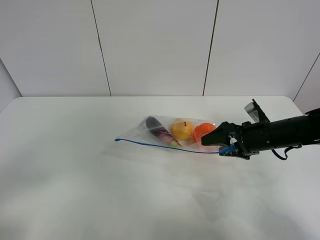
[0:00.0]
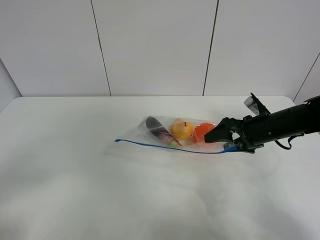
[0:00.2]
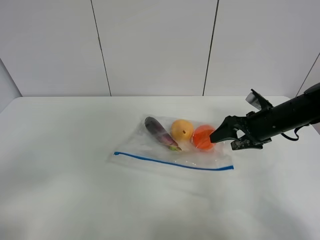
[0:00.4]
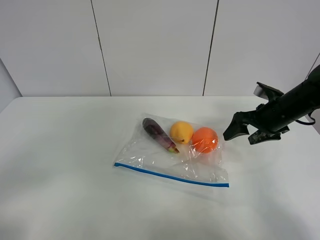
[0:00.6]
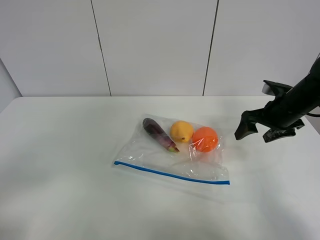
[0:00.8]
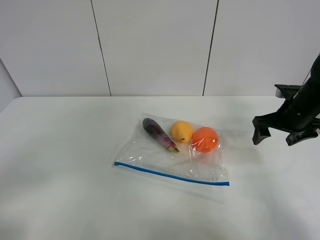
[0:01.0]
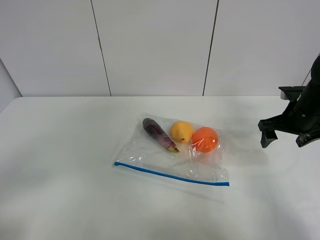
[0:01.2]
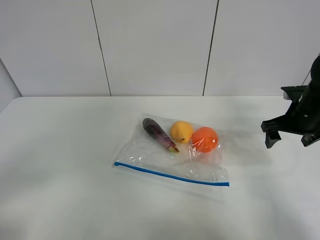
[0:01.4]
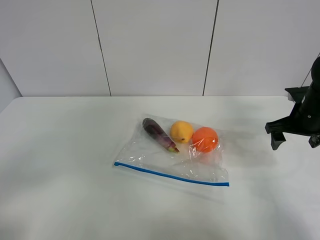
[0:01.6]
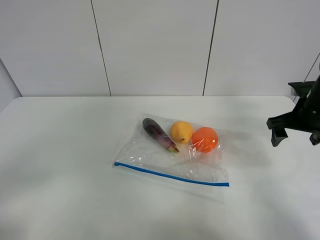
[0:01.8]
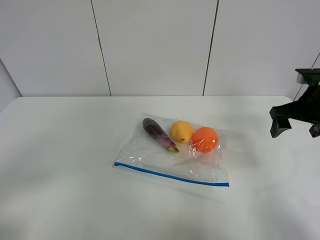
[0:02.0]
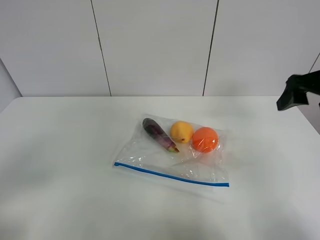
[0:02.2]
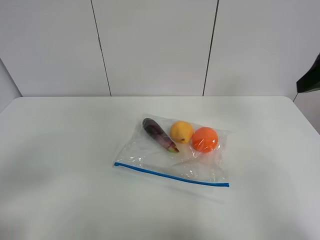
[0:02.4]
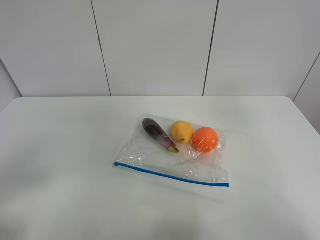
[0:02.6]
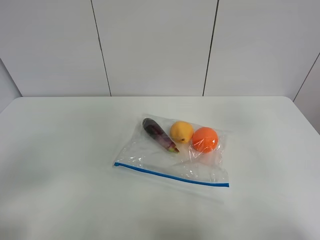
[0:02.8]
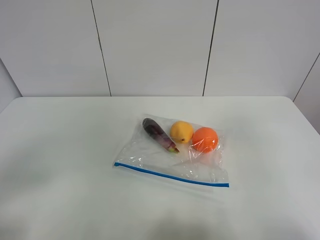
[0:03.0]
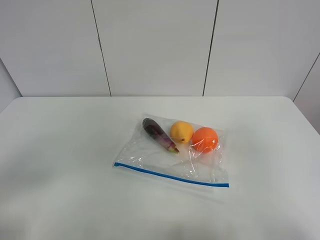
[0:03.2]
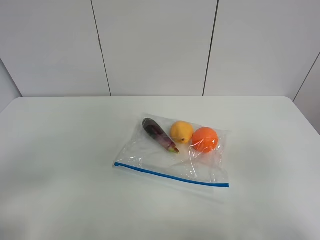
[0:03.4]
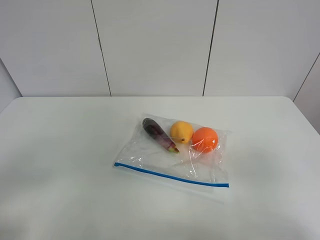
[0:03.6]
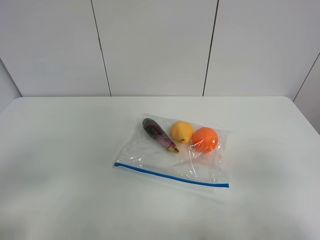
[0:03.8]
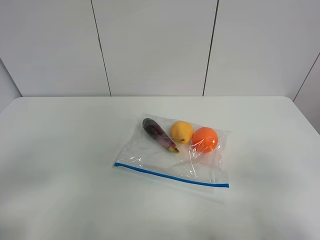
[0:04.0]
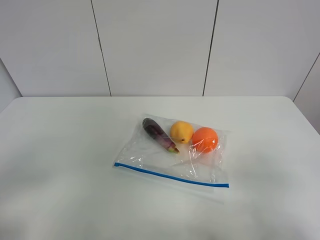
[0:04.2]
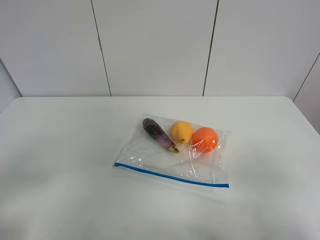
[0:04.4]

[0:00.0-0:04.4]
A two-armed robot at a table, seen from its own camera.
0:00.0 to 0:01.4: The right gripper moves to the right and upward, roughly 10 cm.
0:01.4 to 0:03.0: The right gripper is displaced backward and upward by approximately 35 cm.
0:03.0 to 0:04.4: The right gripper goes some 10 cm downward.

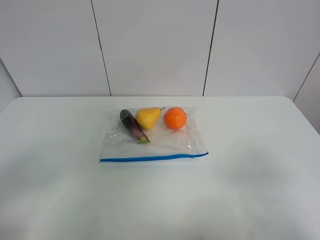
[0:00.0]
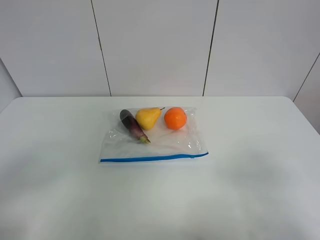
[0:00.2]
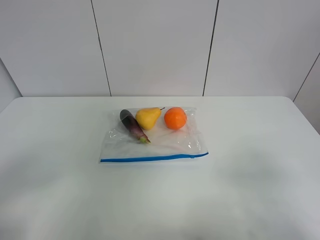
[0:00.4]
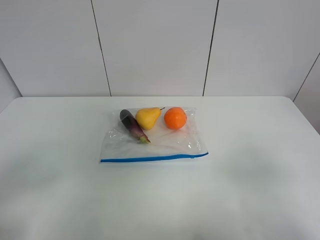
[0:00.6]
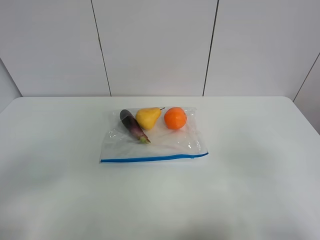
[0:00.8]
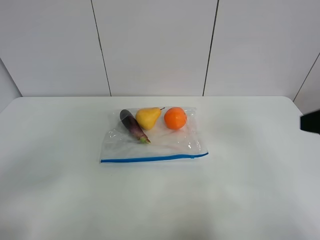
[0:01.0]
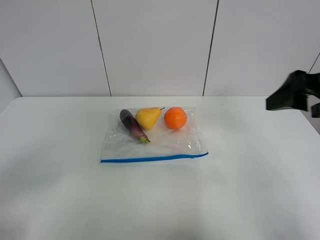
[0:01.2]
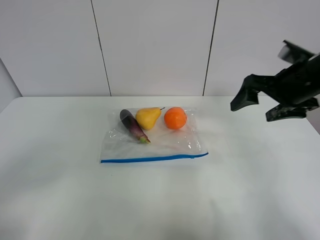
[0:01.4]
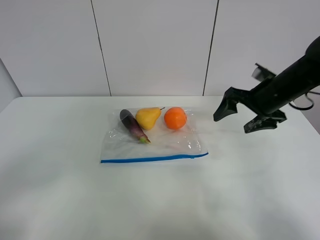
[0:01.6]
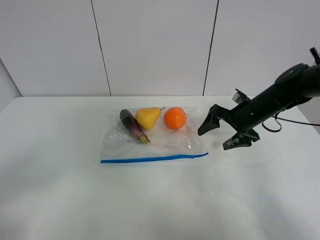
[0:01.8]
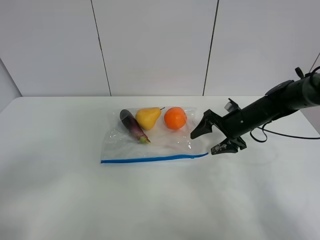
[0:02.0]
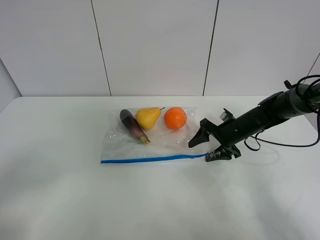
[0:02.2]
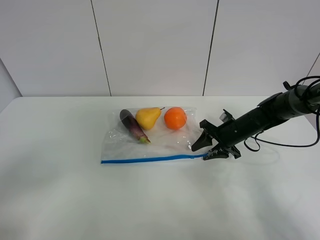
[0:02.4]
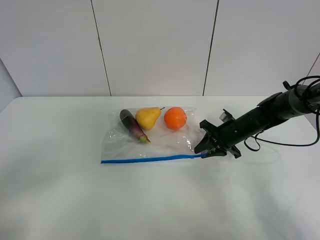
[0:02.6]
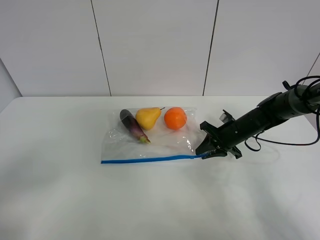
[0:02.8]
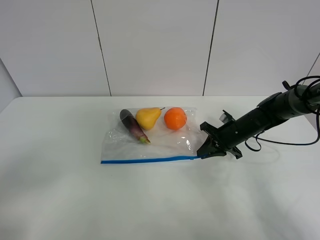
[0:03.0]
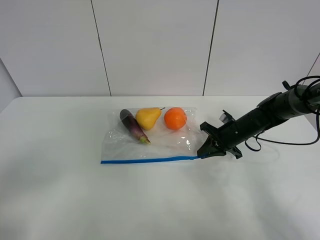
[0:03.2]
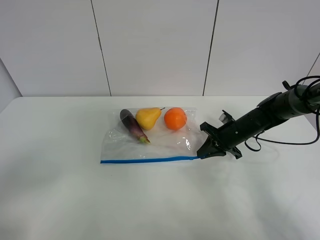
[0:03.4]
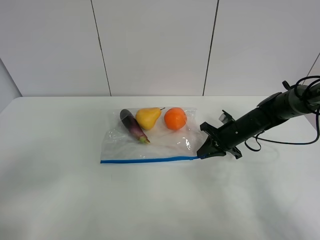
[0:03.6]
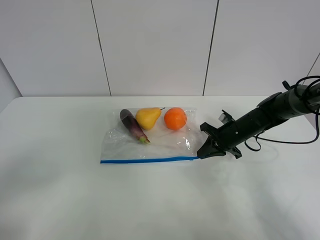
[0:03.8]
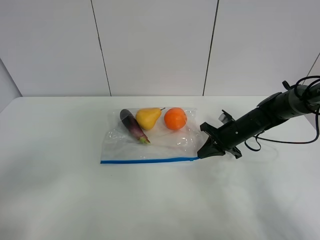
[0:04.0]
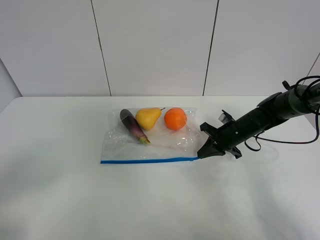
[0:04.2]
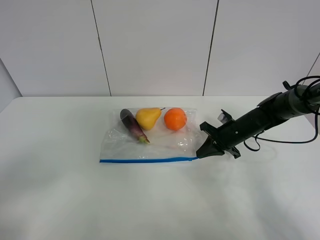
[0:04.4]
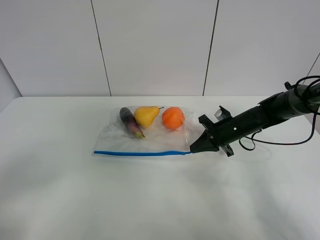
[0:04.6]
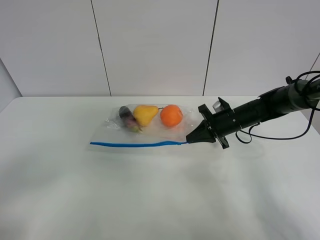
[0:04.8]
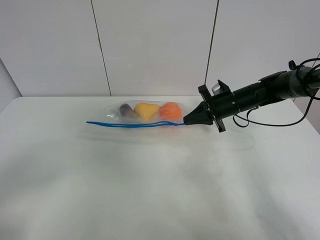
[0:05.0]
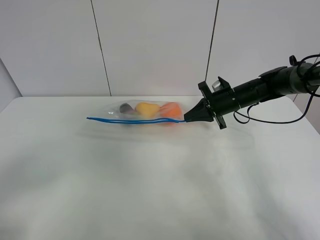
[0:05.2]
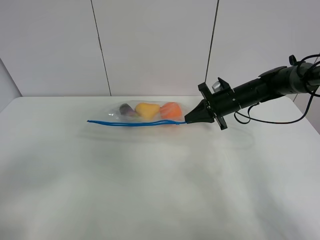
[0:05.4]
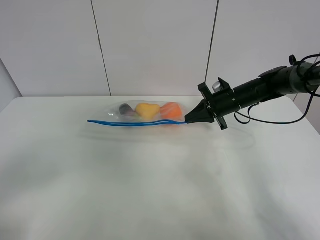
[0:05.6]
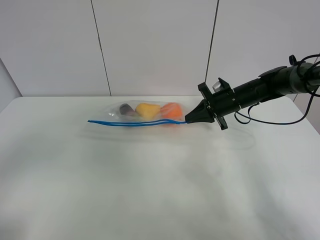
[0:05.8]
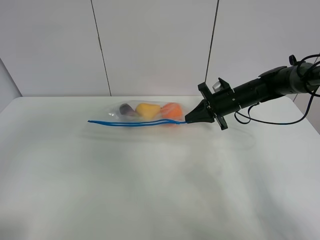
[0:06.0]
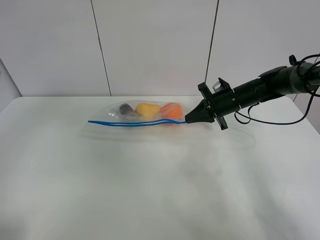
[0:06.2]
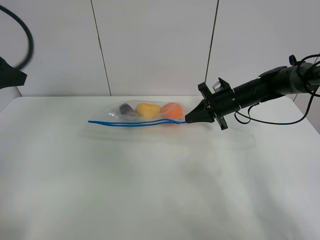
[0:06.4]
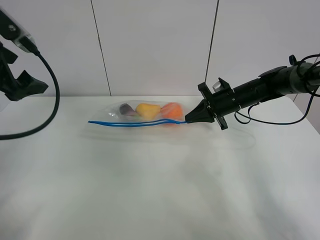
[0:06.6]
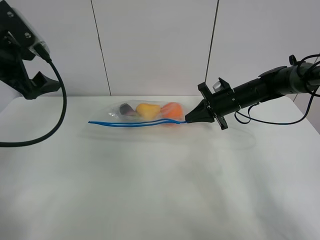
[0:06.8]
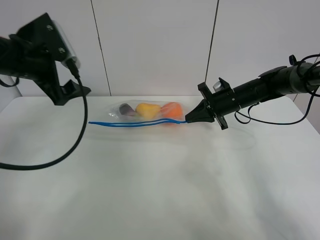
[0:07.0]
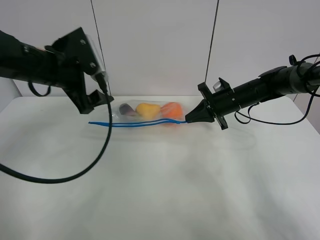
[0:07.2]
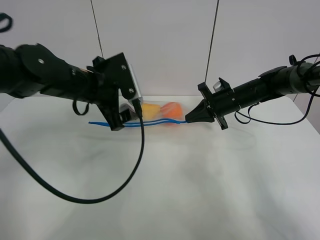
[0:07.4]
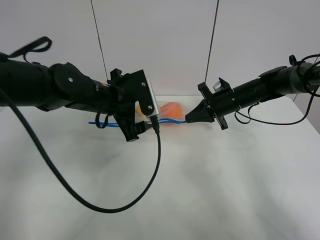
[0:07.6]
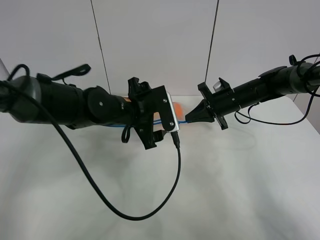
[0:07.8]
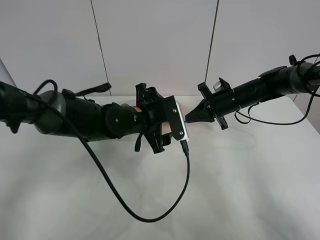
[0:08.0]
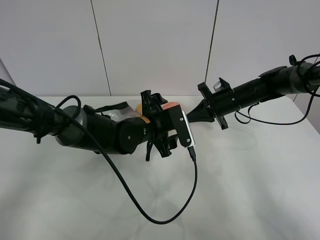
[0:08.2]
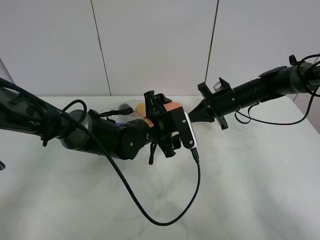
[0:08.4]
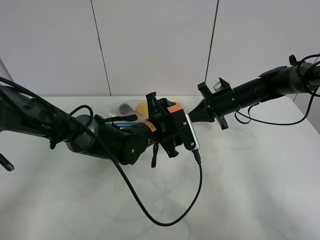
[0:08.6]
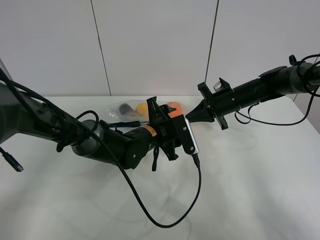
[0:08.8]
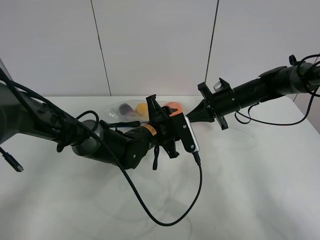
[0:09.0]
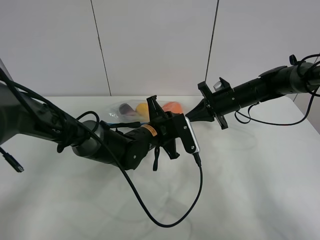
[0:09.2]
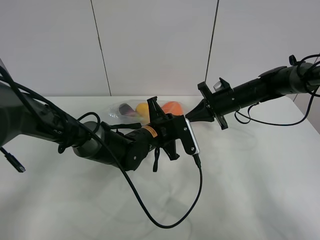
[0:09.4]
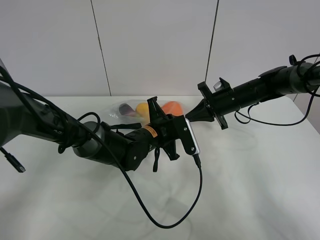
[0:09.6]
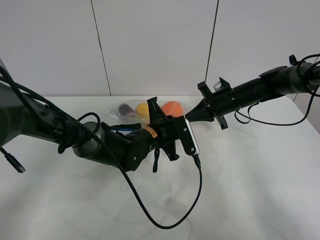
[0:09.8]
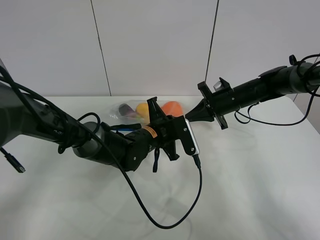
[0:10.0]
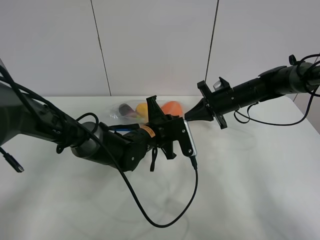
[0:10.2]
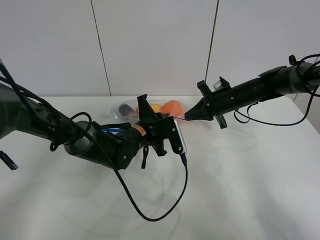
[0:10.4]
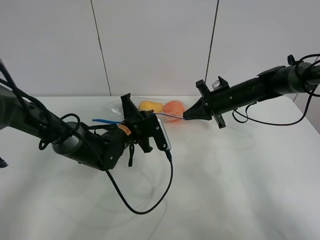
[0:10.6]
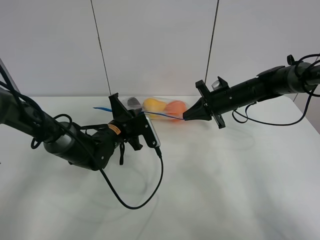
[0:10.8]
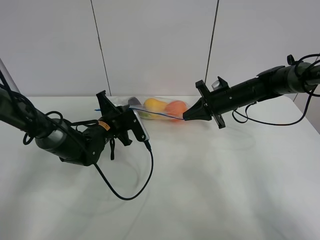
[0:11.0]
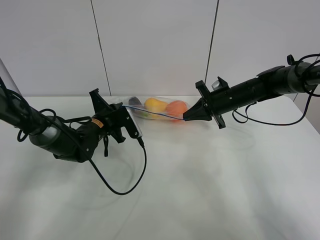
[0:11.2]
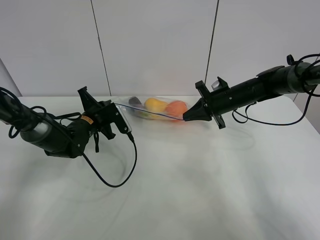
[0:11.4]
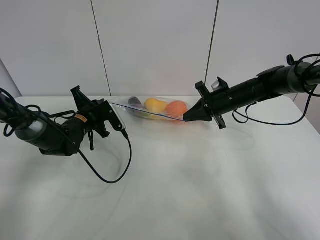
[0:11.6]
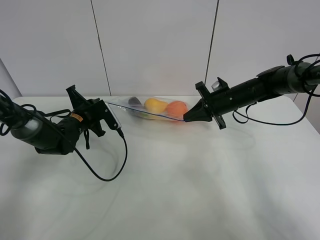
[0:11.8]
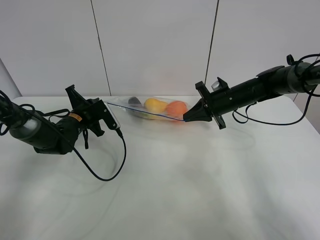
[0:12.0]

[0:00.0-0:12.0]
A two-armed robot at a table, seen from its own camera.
Step, 0:00.0 to 0:03.8: Grasp the fruit bag with right gripper.
Step, 0:04.0 to 0:05.4: Lift the fruit bag with your right gripper.
0:00.0 to 0:01.6: The right gripper moves forward, roughly 35 cm.
0:01.6 to 0:03.0: The right gripper moves downward, about 15 cm, and closes up.
0:03.0 to 0:04.4: The two grippers keep their place.
0:04.4 to 0:06.0: The right gripper moves upward, some 5 cm. Meanwhile the left gripper goes approximately 15 cm upward and forward.
0:06.0 to 0:07.6: The left gripper is displaced forward, to the right and downward by roughly 35 cm.
0:07.6 to 0:09.0: The left gripper shifts about 10 cm downward and to the right, and closes.
0:09.0 to 0:10.4: The left gripper closes its fingers.
0:10.4 to 0:12.0: The left gripper goes approximately 20 cm to the left.

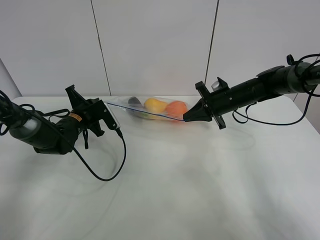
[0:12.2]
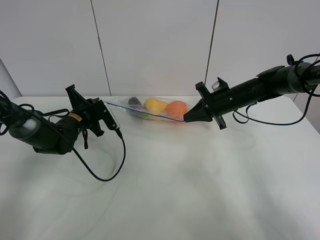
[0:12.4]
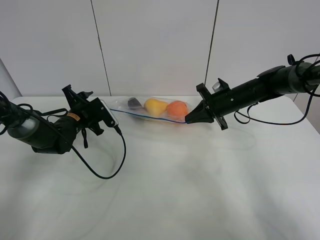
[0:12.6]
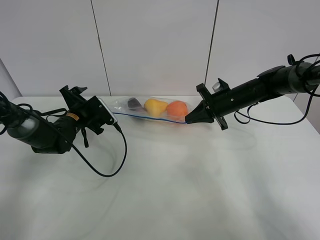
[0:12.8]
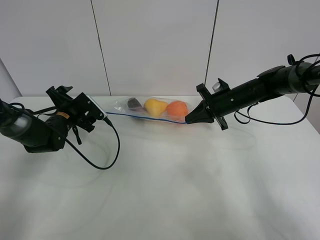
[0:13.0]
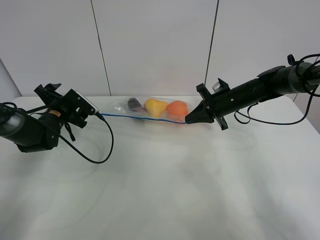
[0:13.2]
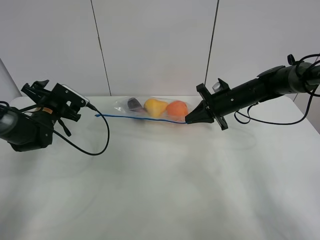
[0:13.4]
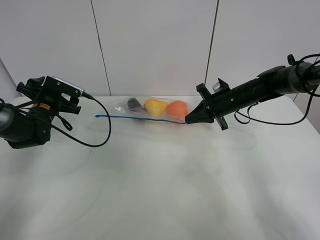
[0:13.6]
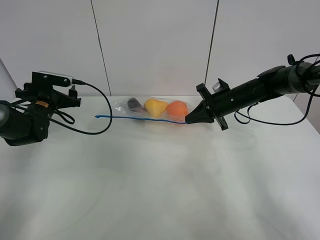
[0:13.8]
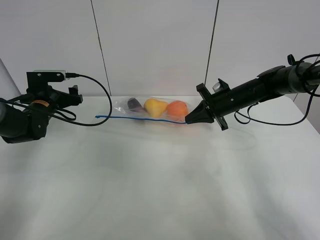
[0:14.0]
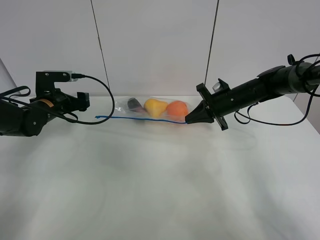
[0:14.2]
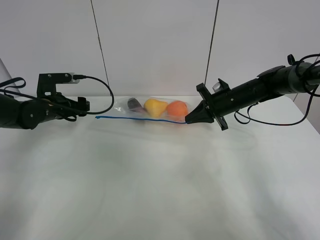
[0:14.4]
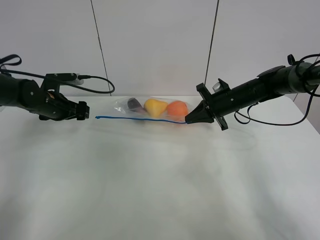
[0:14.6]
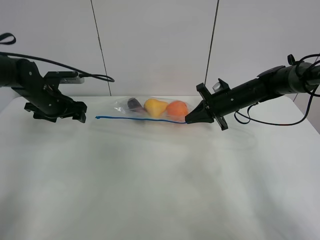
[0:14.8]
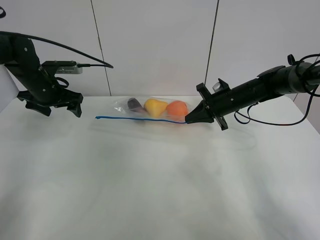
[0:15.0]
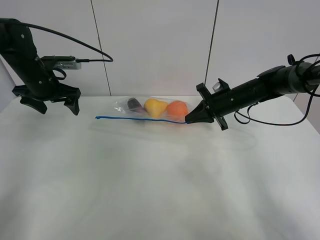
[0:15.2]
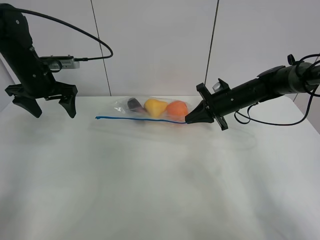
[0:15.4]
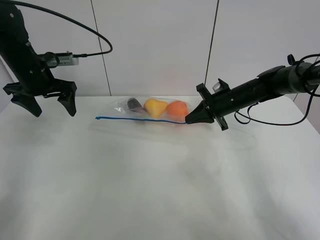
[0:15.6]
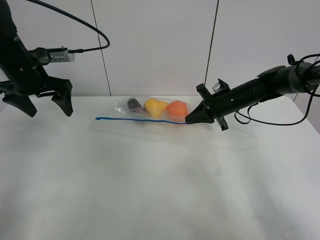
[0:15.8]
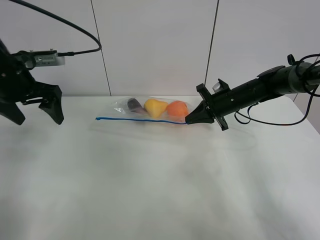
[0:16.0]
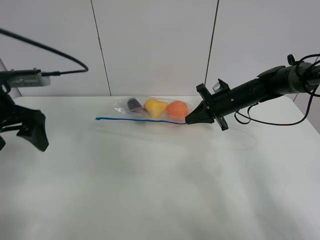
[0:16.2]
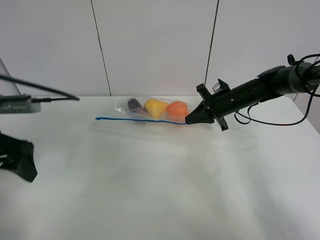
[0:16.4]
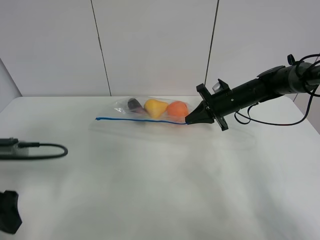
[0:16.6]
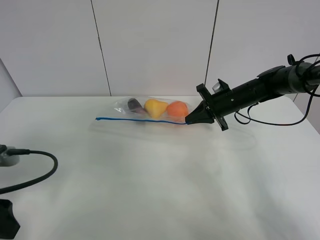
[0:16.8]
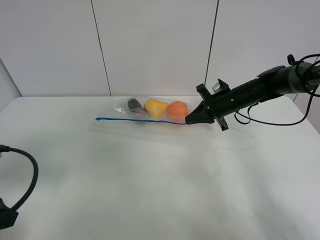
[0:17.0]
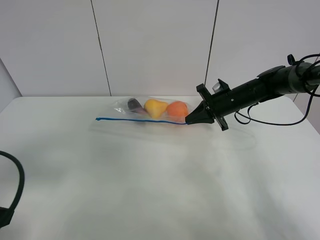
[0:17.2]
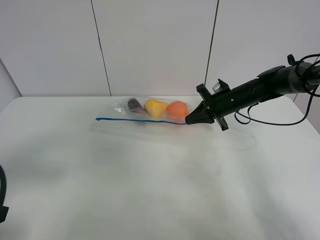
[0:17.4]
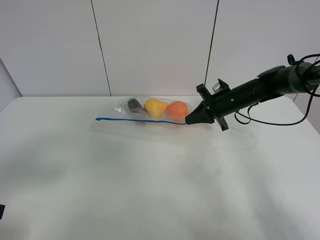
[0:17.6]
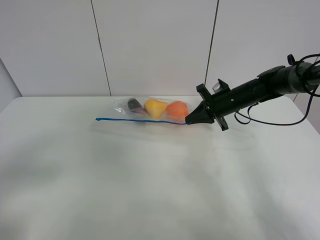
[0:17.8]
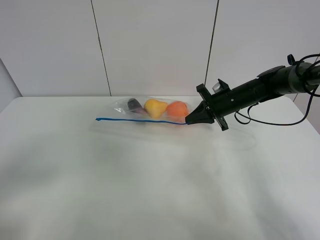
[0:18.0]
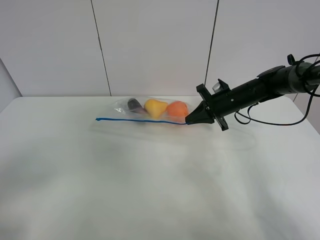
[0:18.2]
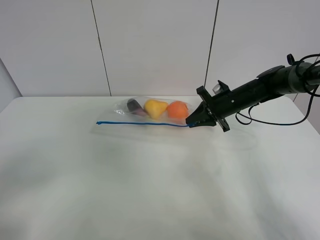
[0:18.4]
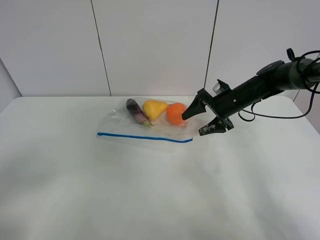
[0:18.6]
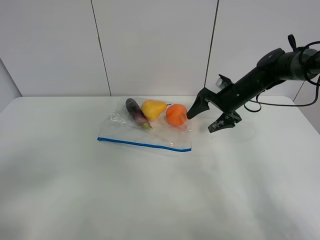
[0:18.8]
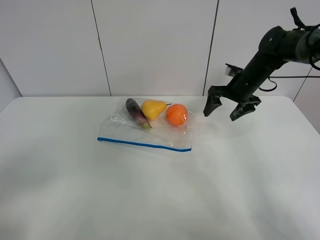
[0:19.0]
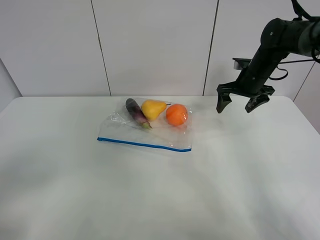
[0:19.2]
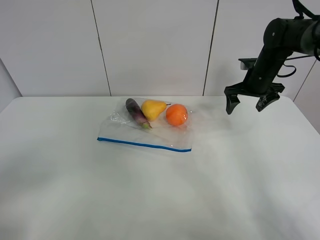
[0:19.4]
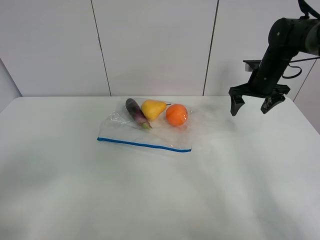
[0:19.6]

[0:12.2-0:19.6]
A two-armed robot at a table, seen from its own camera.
0:12.2 to 0:13.6: The left gripper is displaced to the left by roughly 10 cm, and opens up.
0:13.6 to 0:15.2: The left gripper is displaced upward by some 10 cm.
0:15.2 to 0:16.6: The left gripper shifts about 25 cm backward.
0:16.6 to 0:18.2: The left gripper travels backward by roughly 15 cm.
0:18.2 to 0:19.6: The right gripper travels to the right and upward by approximately 10 cm, and opens its fingers.
